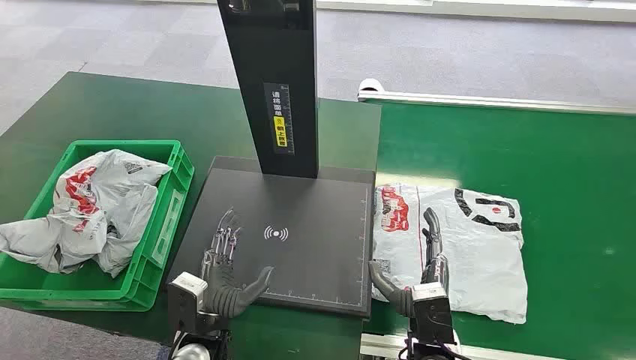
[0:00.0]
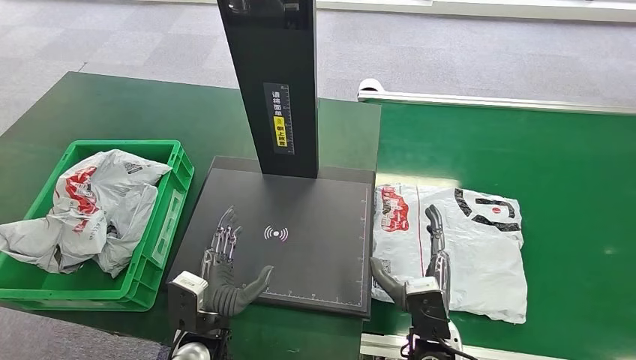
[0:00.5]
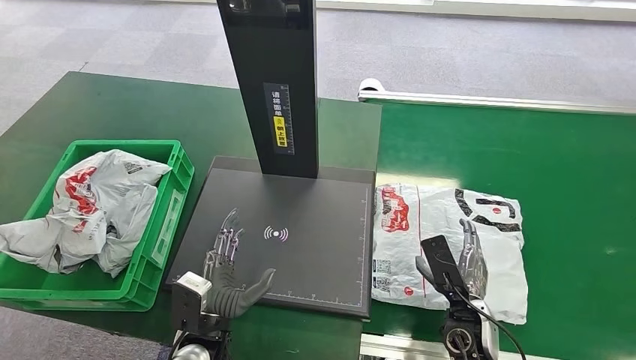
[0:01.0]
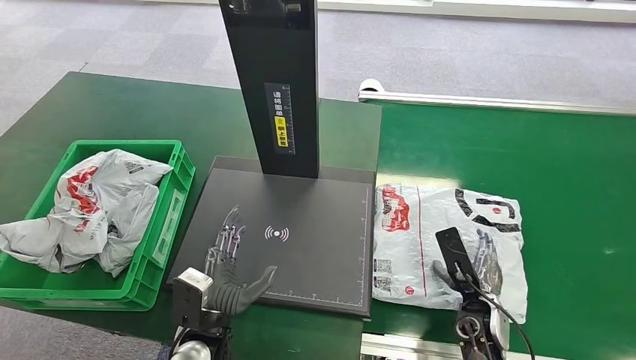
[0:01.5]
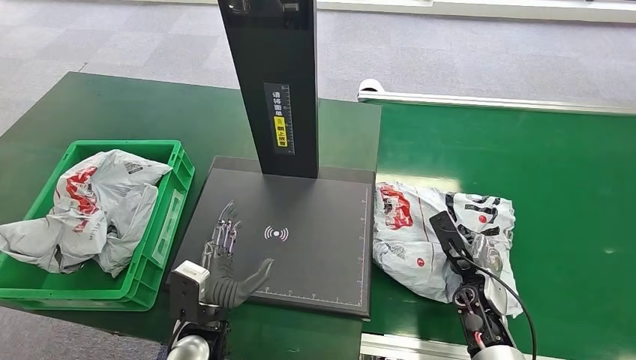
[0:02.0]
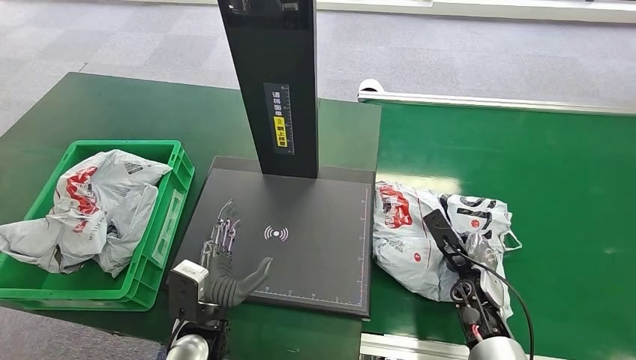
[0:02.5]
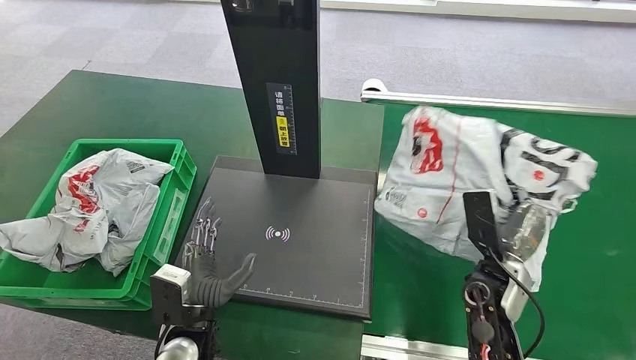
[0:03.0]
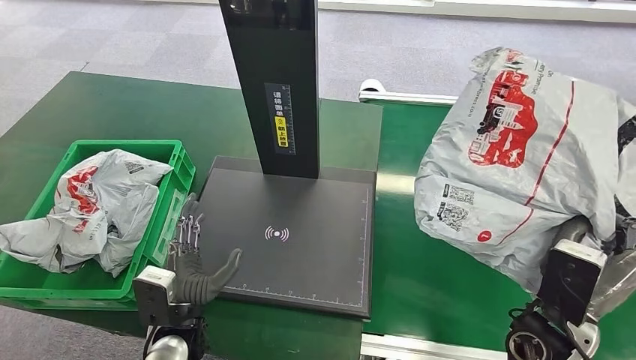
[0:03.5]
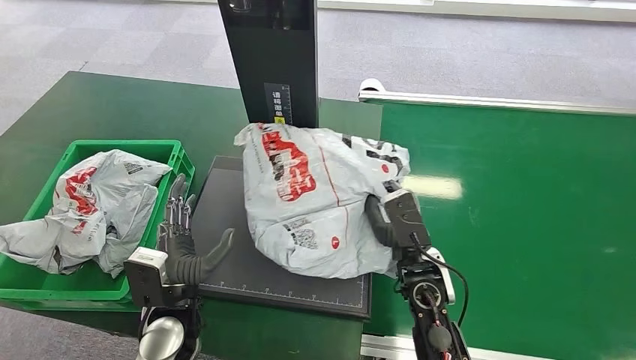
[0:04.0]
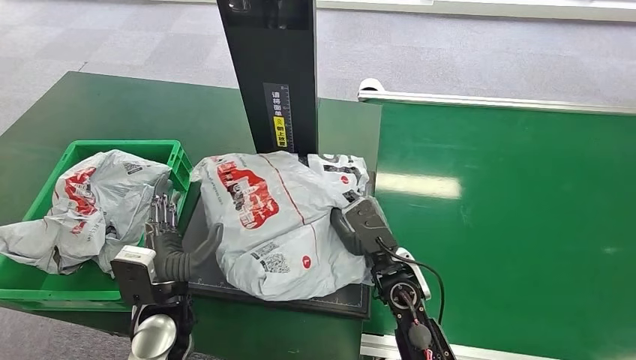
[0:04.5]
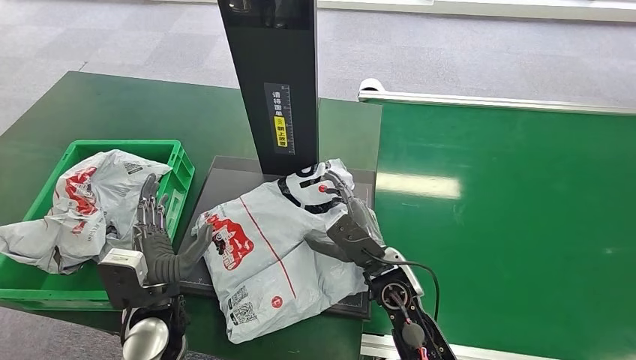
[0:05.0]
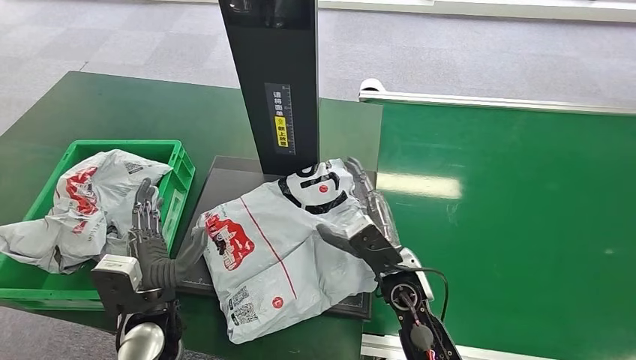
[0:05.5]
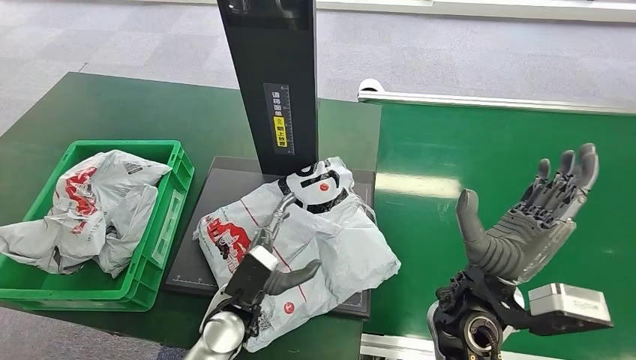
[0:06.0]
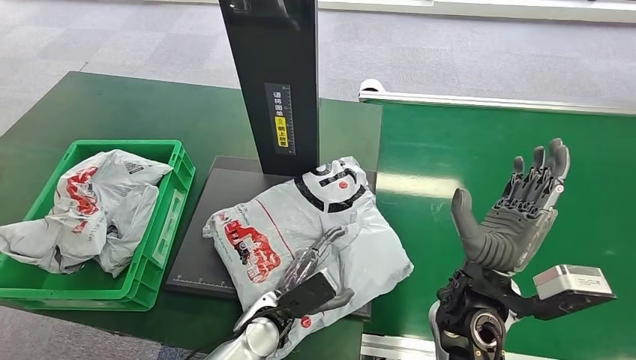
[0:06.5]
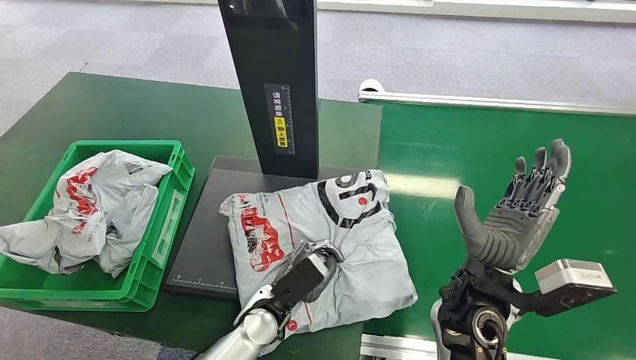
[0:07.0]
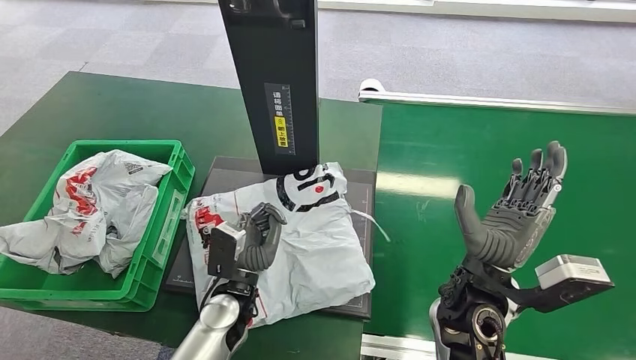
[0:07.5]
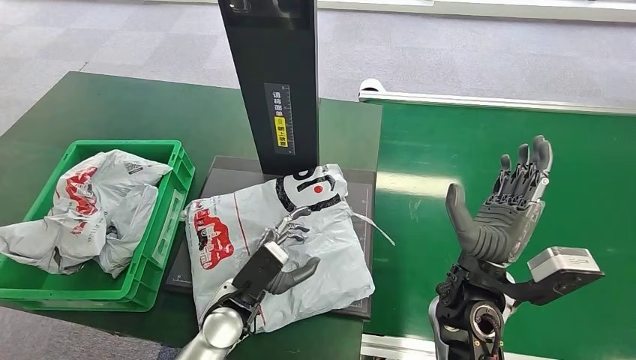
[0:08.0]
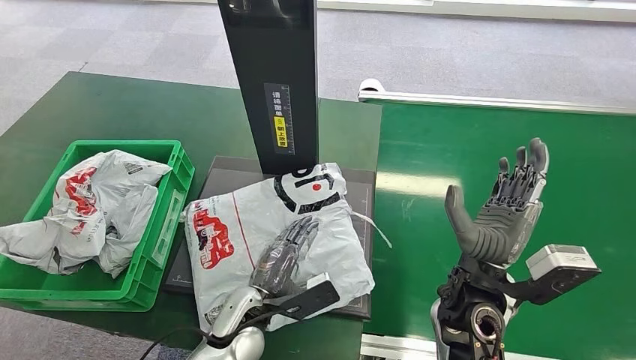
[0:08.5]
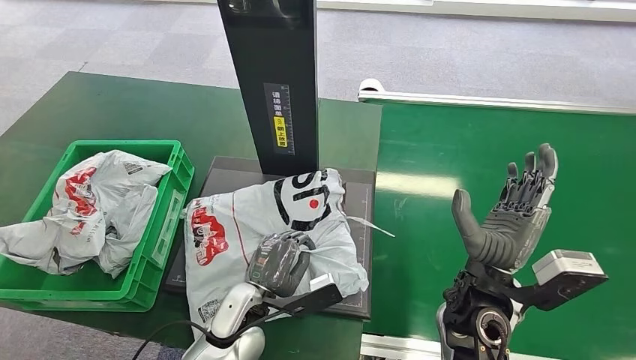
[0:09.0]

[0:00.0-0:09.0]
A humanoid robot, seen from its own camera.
Step, 0:00.0 to 0:03.0: Pick up the package from the conveyor belt.
Step, 0:03.5 to 0:05.5: Place the package onto the inbound machine.

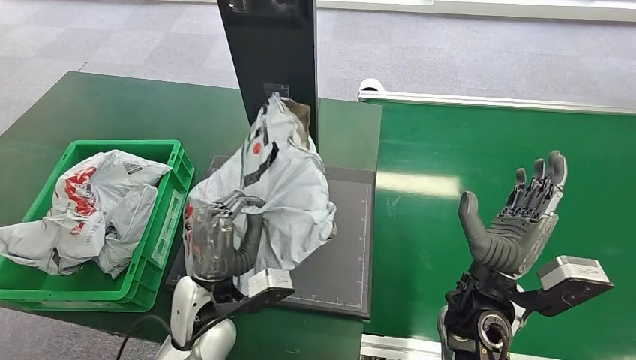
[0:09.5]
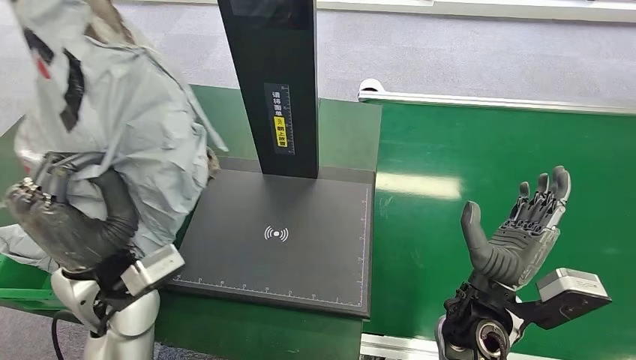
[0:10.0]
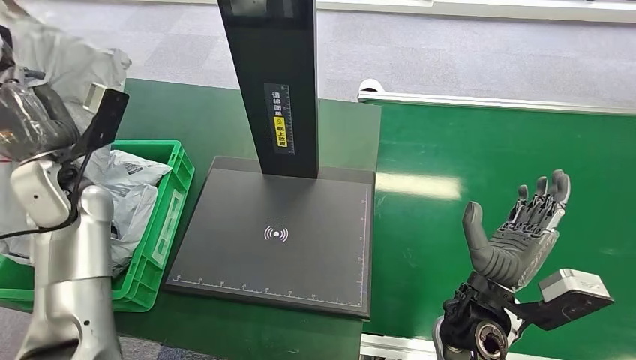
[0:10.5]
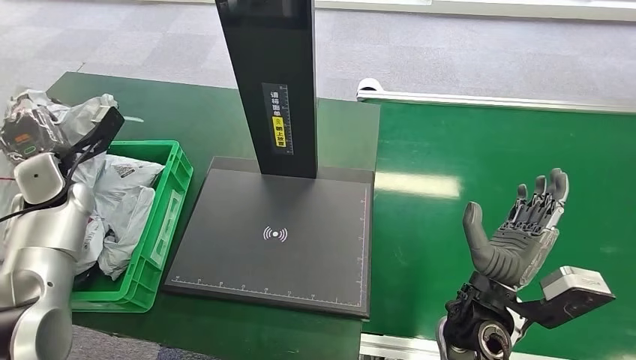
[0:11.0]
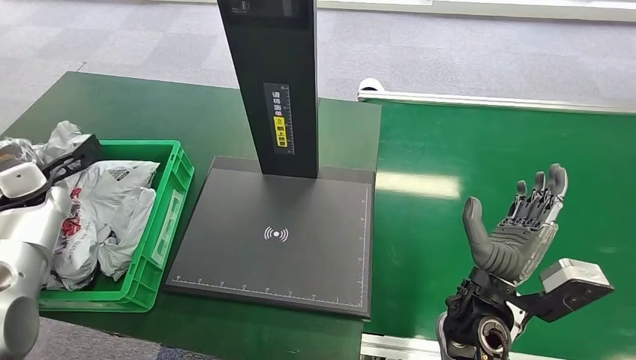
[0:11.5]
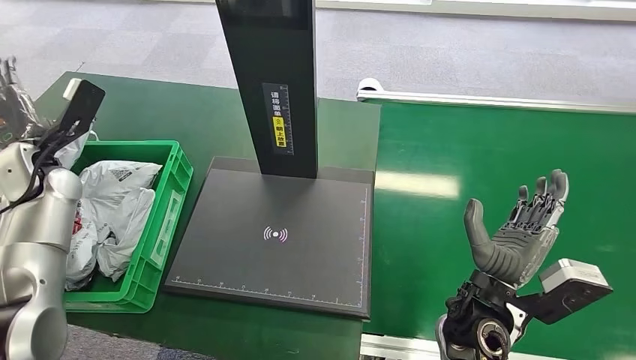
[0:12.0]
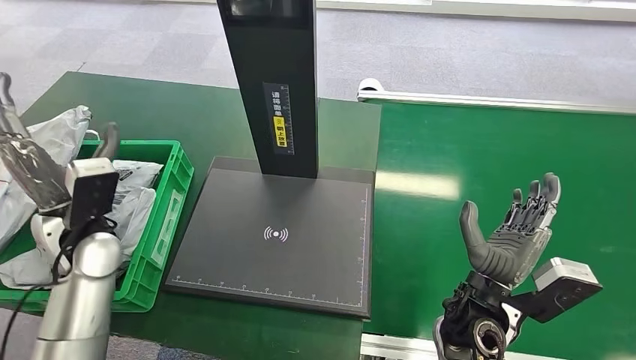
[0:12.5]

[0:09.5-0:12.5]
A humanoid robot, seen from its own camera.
Step, 0:10.0 to 0:12.5: Place the package into the parcel locker.
0:11.0 to 0:12.5: The left hand travels to the right and backward by some 15 cm.
